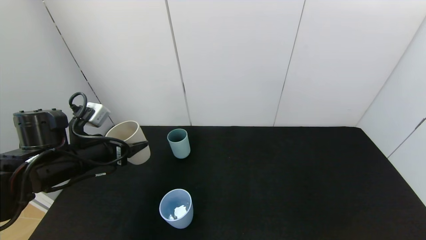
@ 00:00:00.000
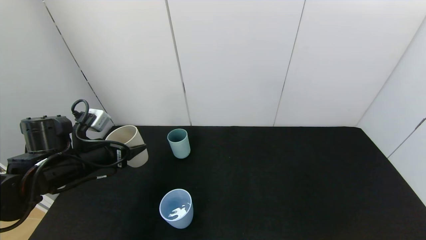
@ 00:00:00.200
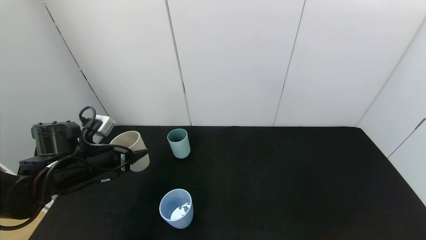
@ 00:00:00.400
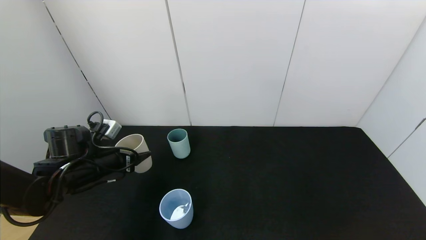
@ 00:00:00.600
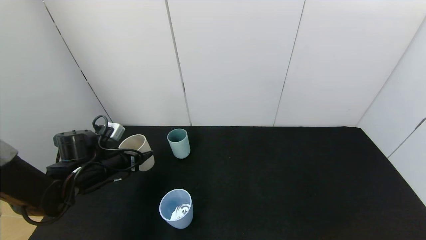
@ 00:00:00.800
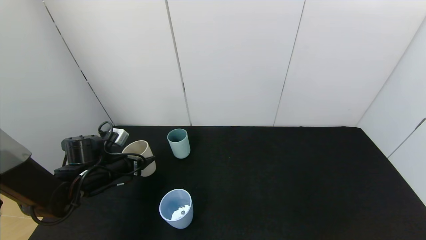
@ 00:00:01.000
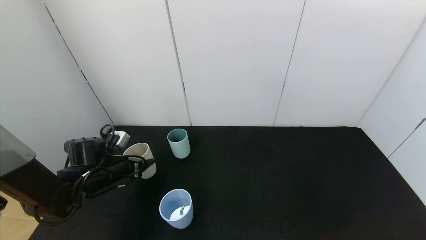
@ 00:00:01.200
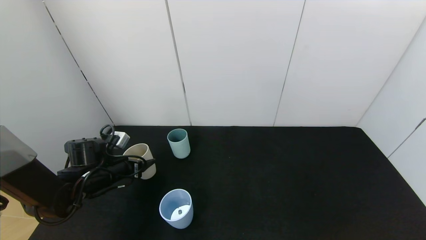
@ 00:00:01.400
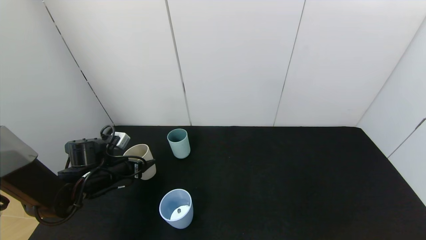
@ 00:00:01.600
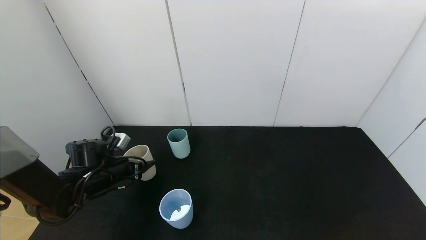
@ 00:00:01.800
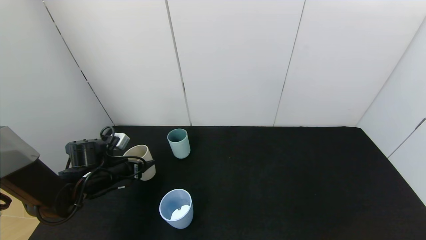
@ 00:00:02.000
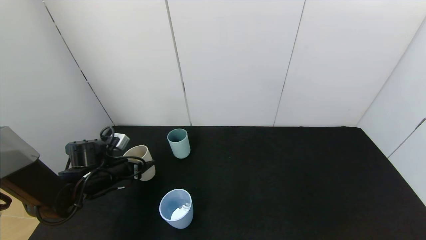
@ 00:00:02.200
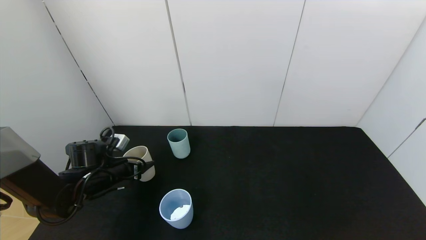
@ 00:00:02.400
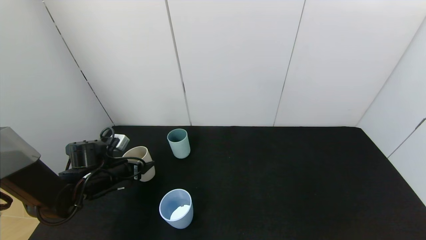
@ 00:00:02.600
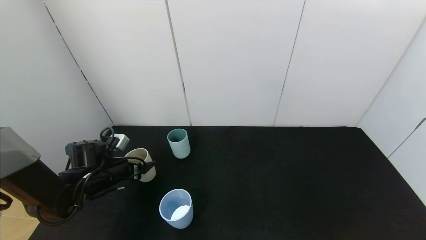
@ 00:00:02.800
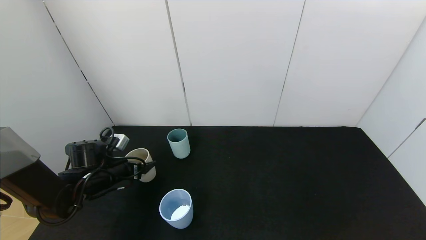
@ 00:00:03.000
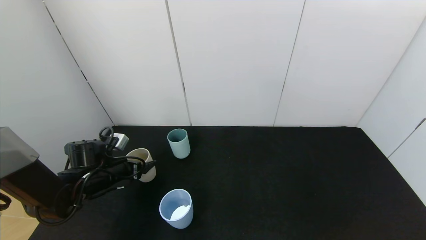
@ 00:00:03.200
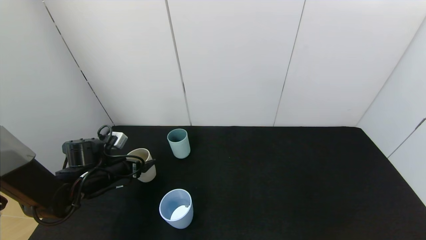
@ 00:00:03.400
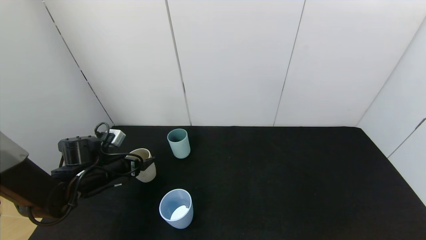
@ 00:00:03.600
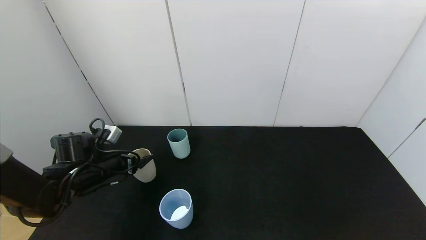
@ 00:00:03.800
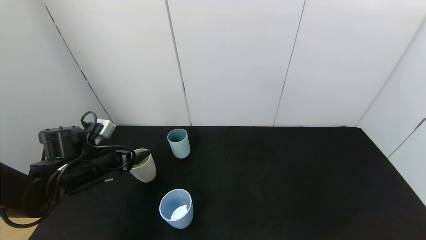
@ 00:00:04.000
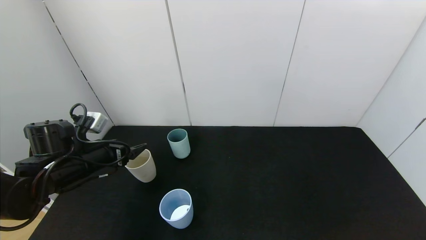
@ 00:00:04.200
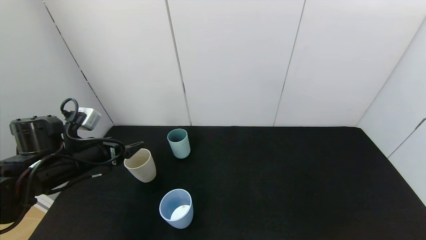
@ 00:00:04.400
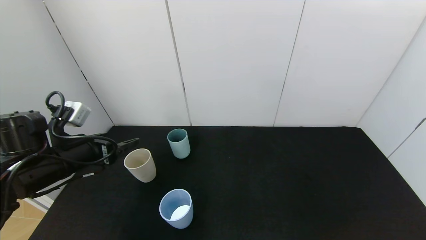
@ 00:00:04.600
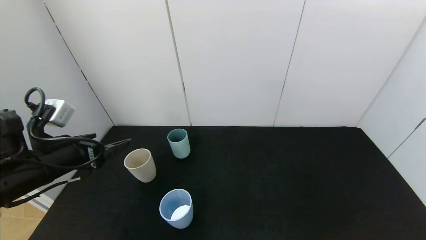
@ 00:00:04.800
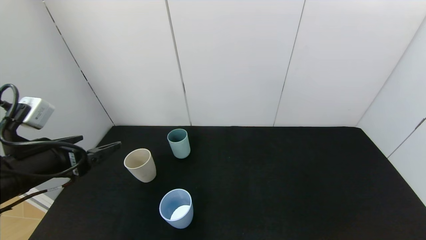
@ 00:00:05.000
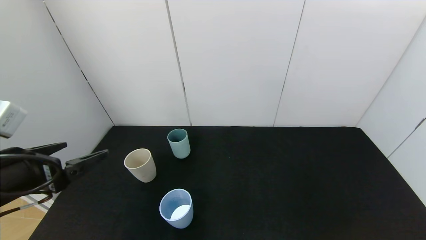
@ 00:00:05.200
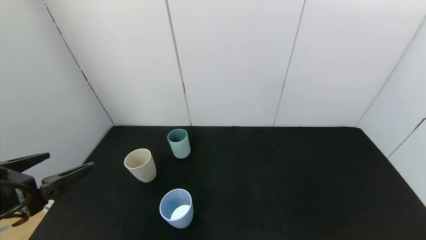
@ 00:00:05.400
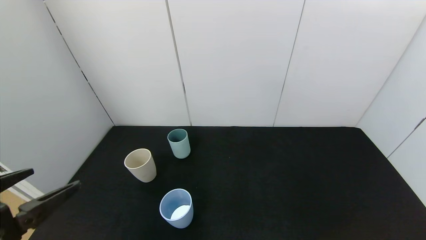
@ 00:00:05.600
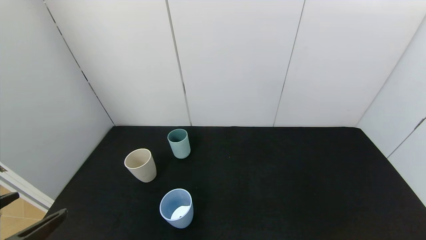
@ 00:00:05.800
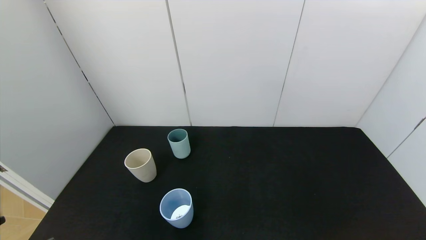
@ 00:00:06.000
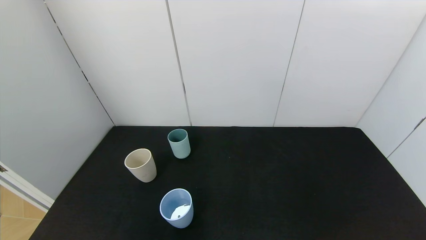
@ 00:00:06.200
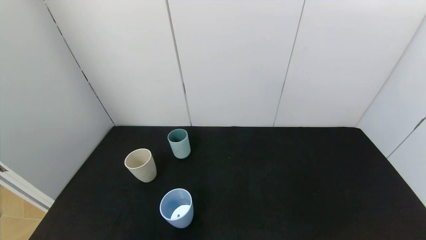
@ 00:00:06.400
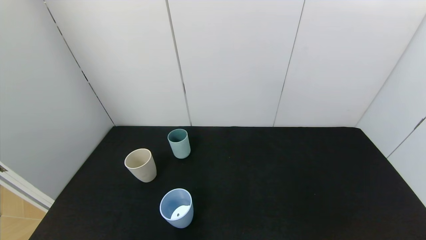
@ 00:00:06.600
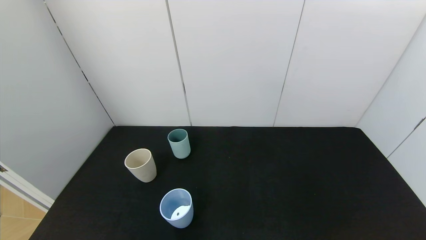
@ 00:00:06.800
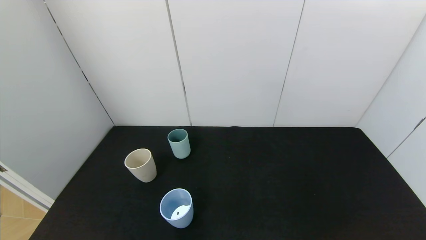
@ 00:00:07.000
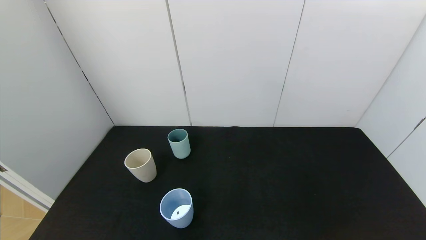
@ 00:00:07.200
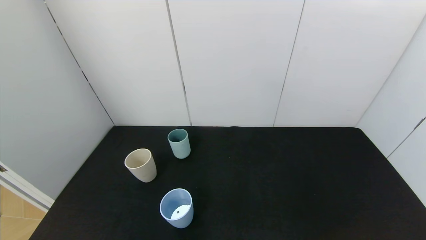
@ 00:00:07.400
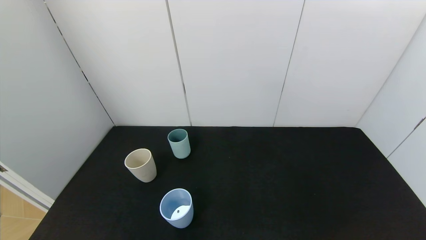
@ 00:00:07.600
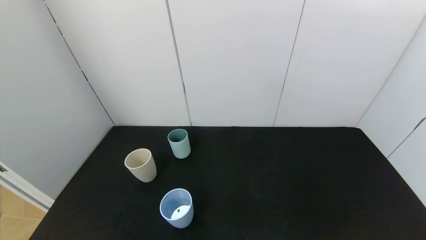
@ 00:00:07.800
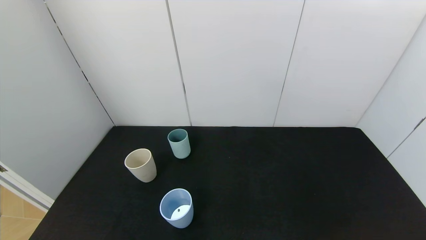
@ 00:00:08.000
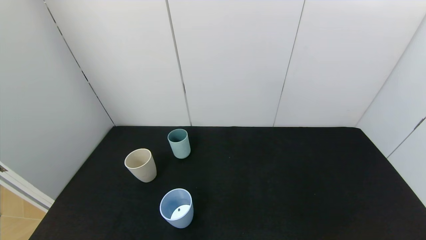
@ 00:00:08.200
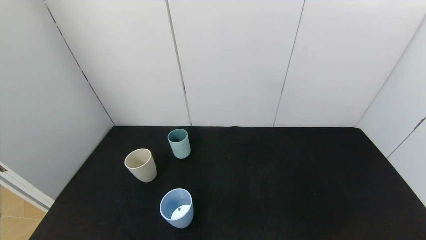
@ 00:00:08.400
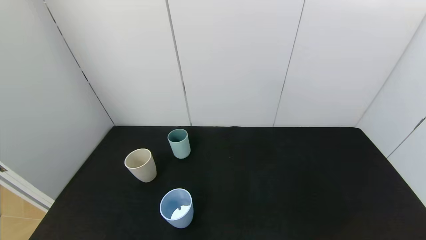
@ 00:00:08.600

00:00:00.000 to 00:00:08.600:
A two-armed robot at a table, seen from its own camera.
Task of the whole recording: use the gripper to pour the water into the other two cups on black table.
Step, 00:00:00.000 to 00:00:04.200: Place the white cup with the left gripper.
00:00:00.000 to 00:00:01.400: The left gripper goes some 10 cm downward and forward.
00:00:01.400 to 00:00:02.800: The left gripper opens up.
00:00:02.800 to 00:00:04.400: The left gripper shifts some 10 cm upward and backward, and opens.
00:00:04.400 to 00:00:05.800: The left gripper is displaced backward by some 25 cm.
